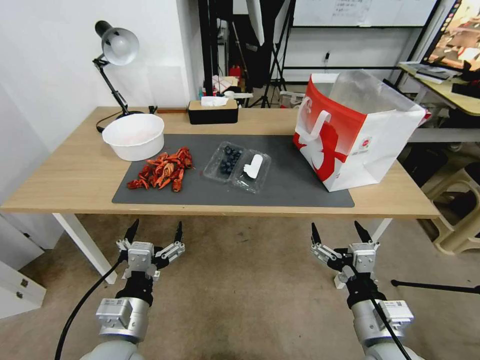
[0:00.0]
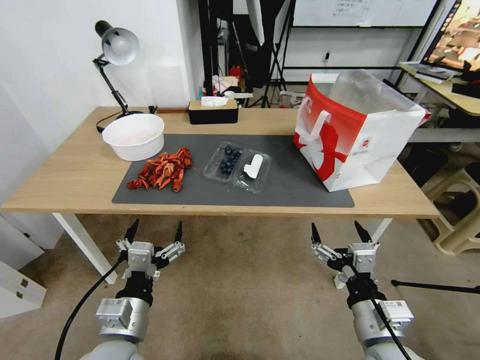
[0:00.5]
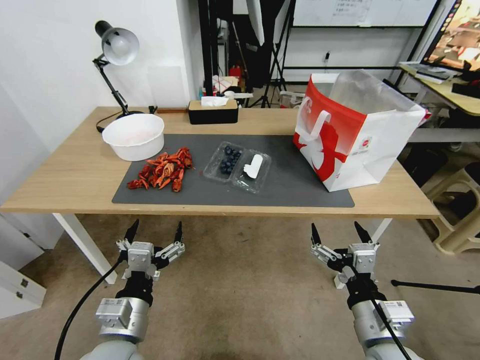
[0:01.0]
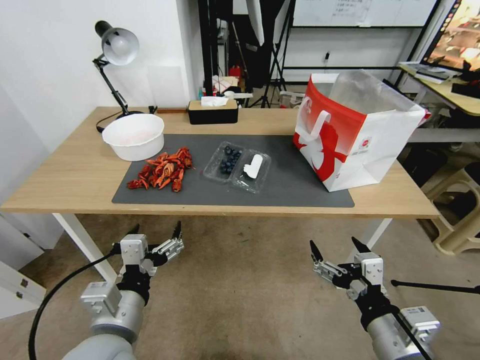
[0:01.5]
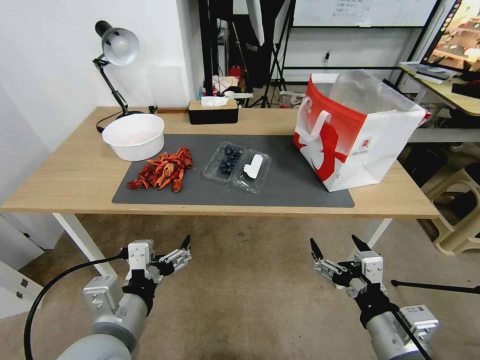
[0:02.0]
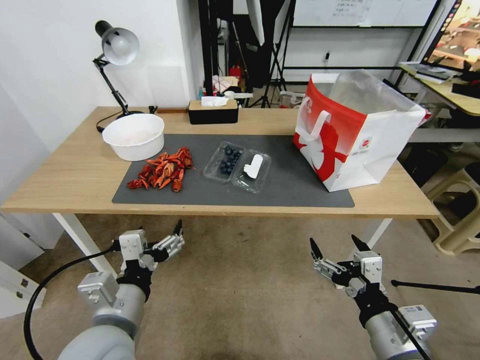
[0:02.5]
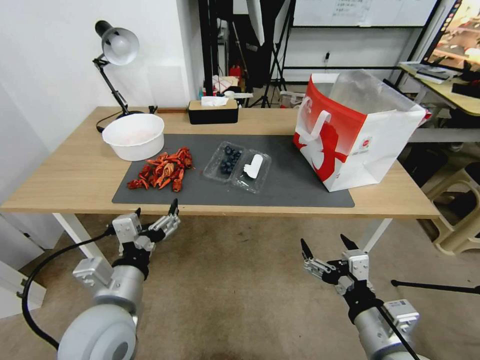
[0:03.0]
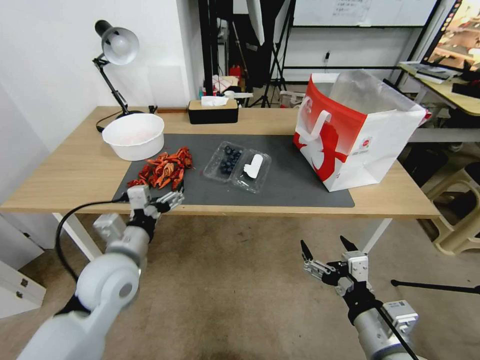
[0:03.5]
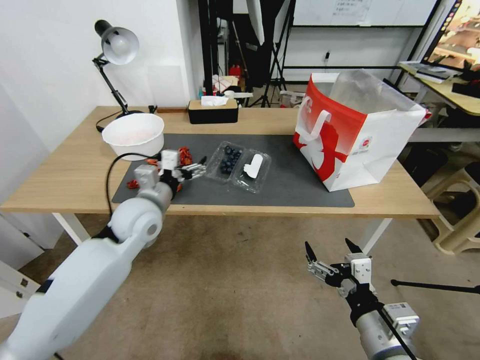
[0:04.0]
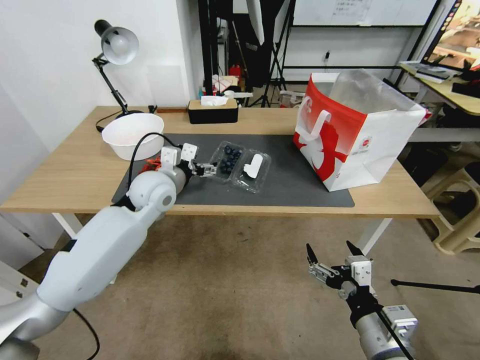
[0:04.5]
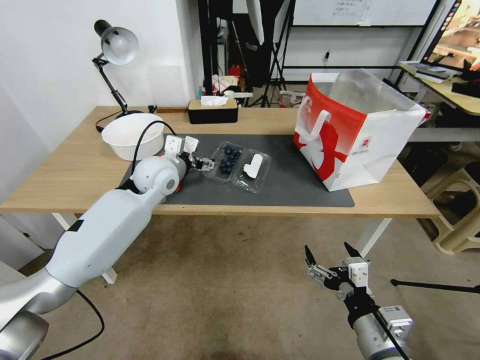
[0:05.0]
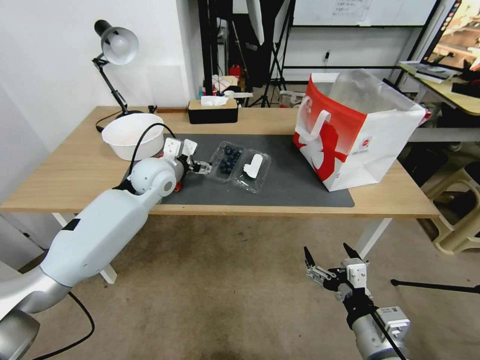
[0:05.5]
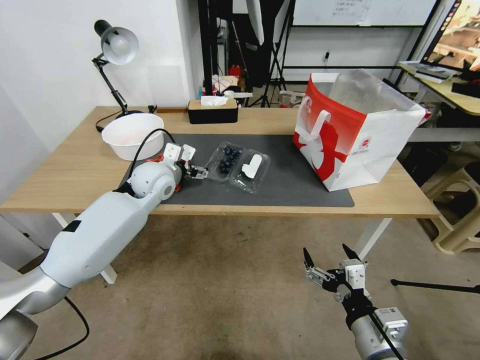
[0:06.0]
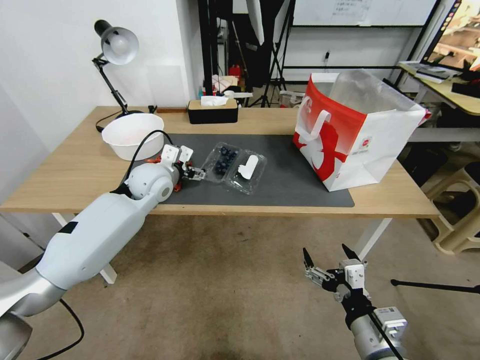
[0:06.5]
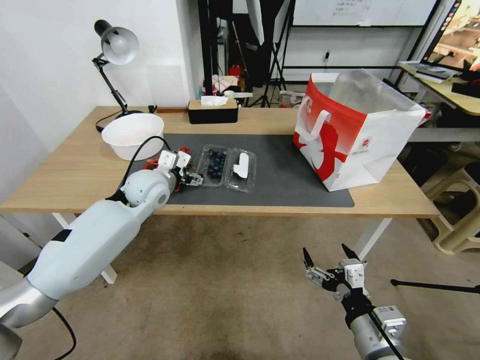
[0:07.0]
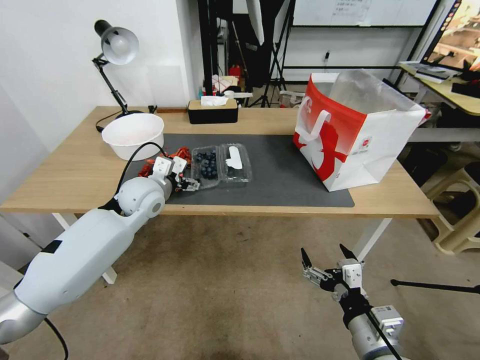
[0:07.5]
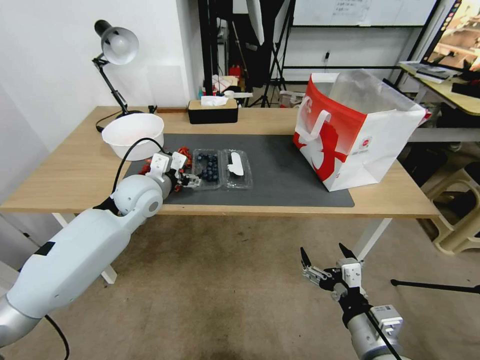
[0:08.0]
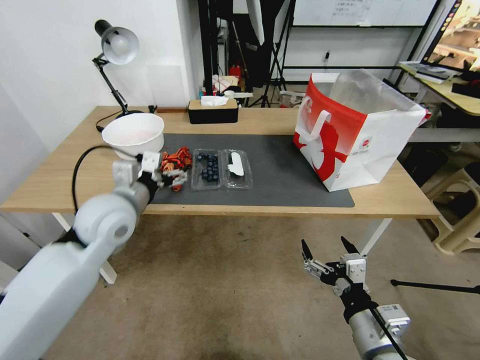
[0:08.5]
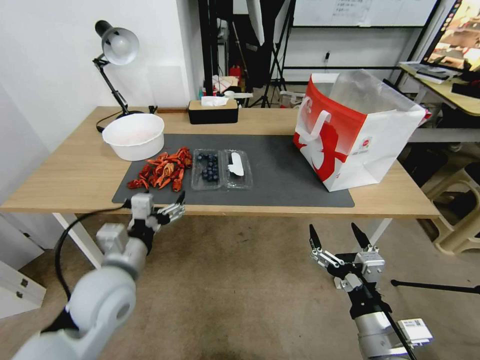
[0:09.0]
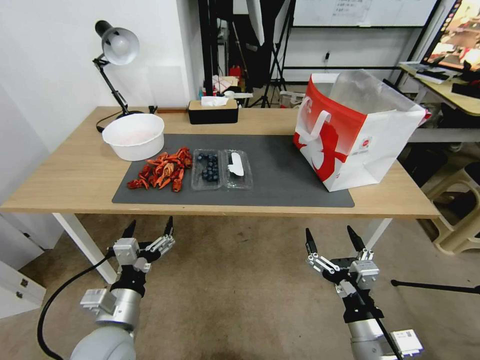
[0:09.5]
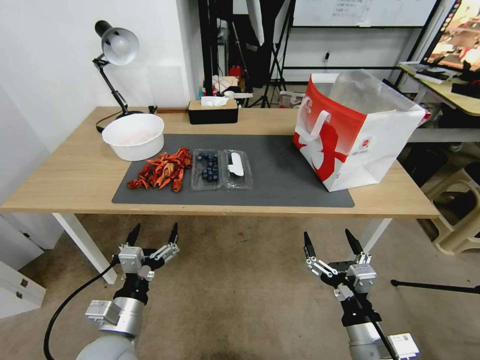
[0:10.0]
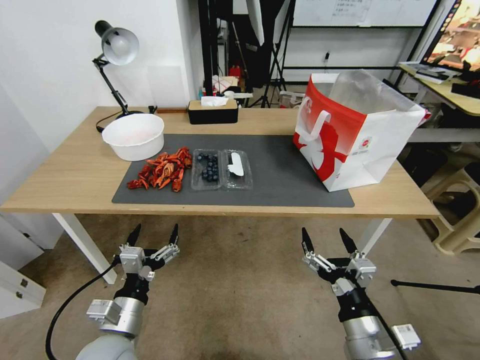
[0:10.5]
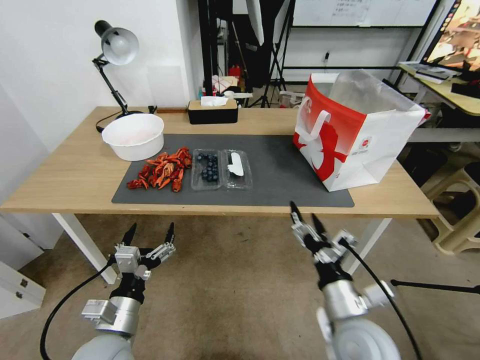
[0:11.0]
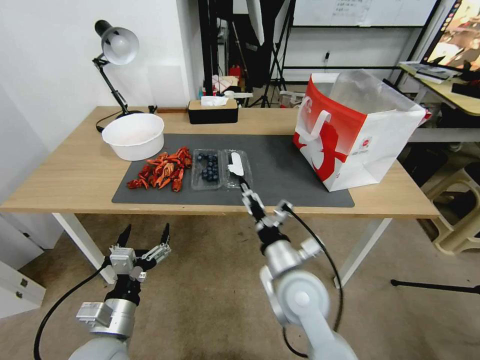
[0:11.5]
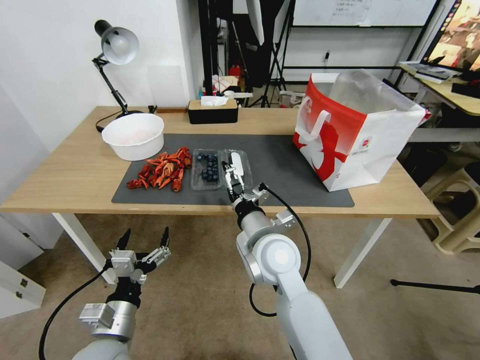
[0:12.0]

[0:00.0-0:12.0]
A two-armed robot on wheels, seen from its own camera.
Task of the whole recording: Close the takeout container lid, then place the container into the takeout bag.
0:02.0 to 0:04.0: The left gripper moves forward, roughly 20 cm.
0:04.0 to 0:06.0: The left gripper travels forward by some 10 cm.
0:06.0 to 0:08.0: The left gripper heads backward, covering roughly 5 cm.
0:08.0 to 0:10.0: The left gripper shifts approximately 30 cm backward and downward.
0:10.0 to 0:12.0: The right gripper heads forward, to the left and upward, covering roughly 25 cm.

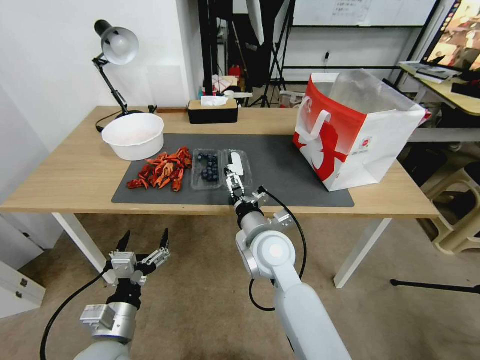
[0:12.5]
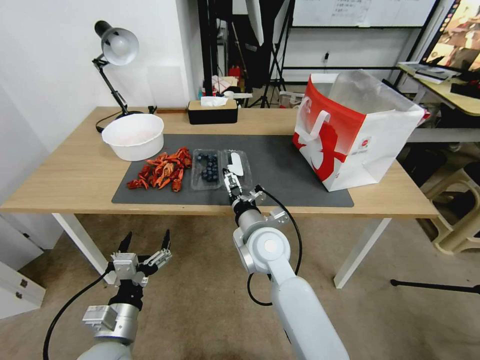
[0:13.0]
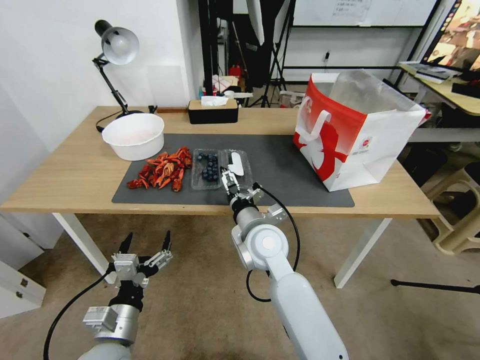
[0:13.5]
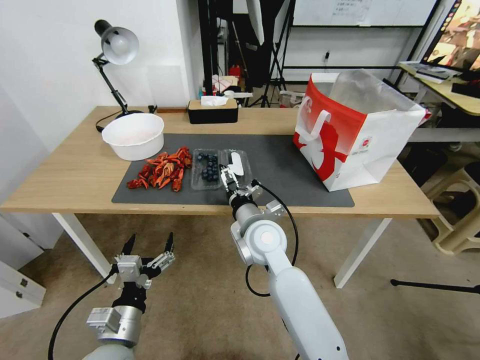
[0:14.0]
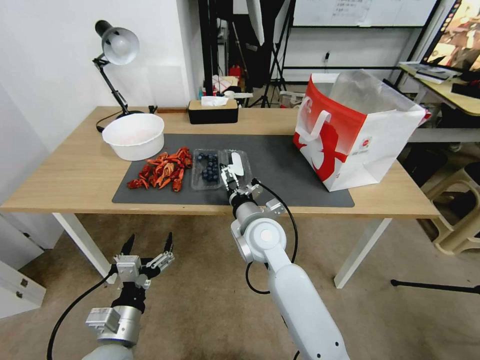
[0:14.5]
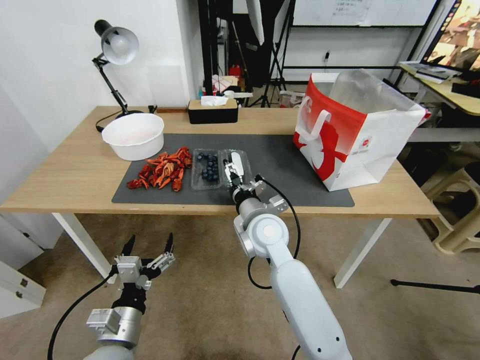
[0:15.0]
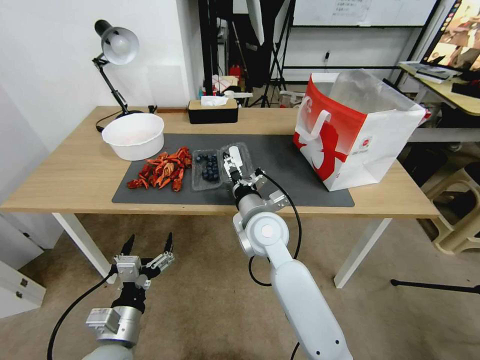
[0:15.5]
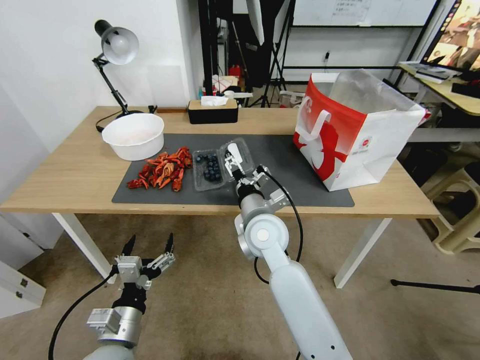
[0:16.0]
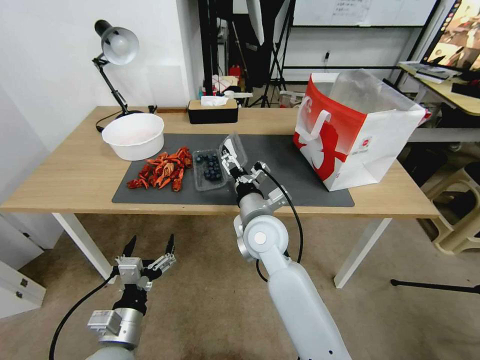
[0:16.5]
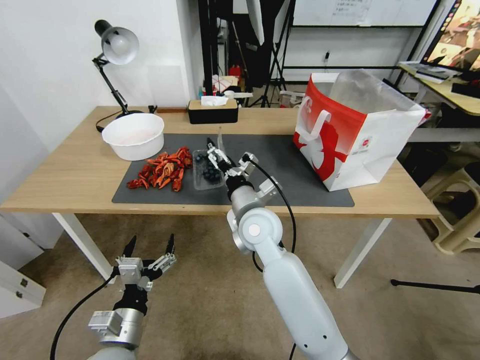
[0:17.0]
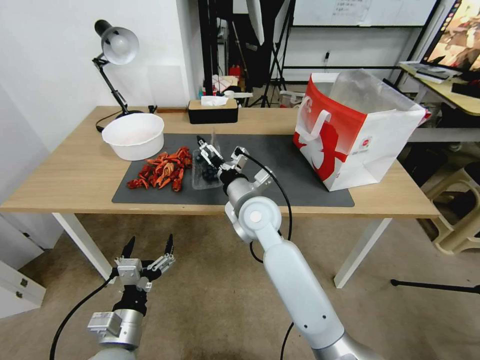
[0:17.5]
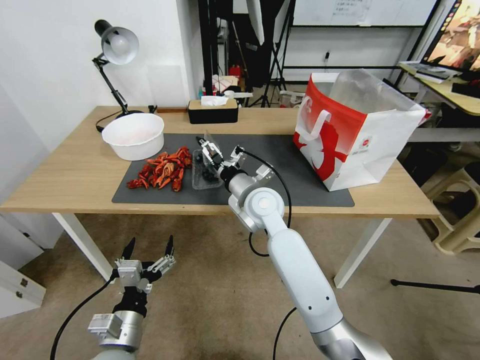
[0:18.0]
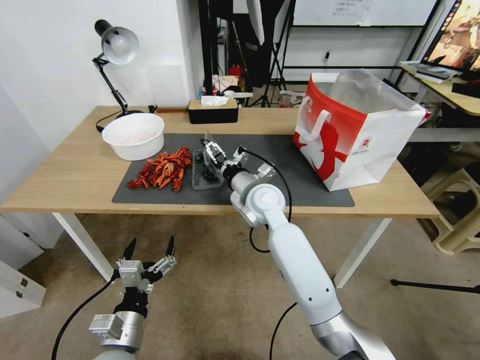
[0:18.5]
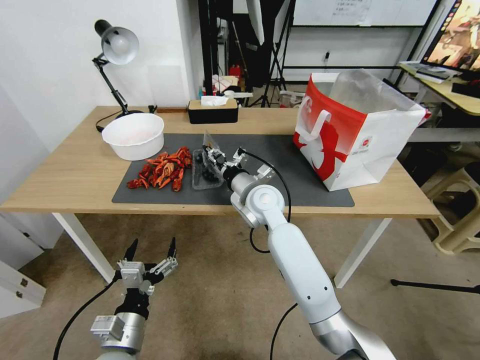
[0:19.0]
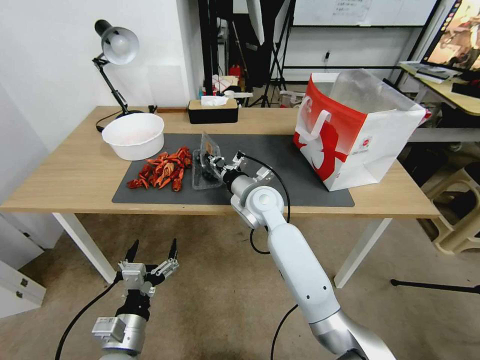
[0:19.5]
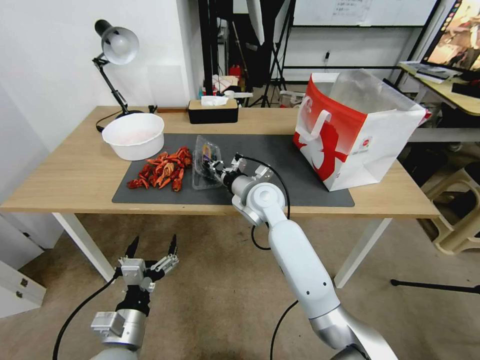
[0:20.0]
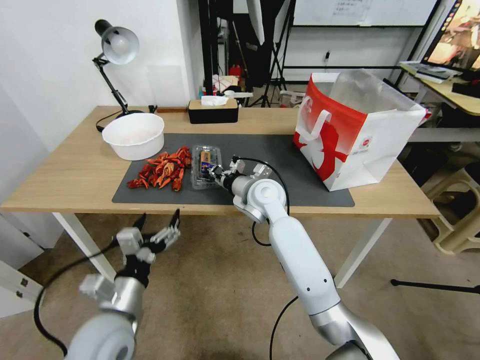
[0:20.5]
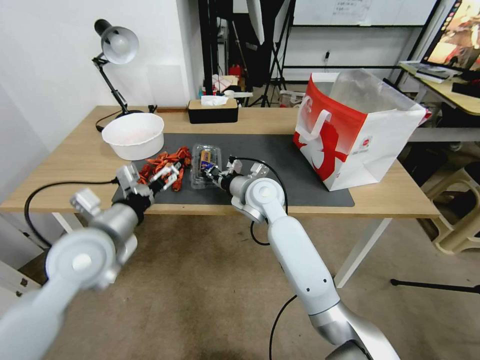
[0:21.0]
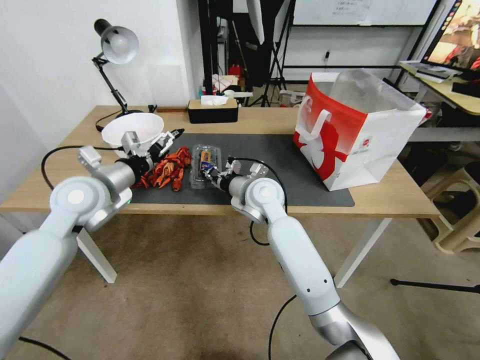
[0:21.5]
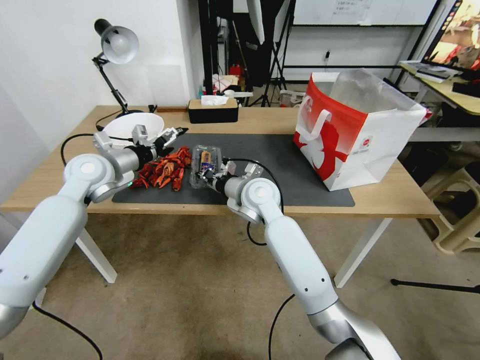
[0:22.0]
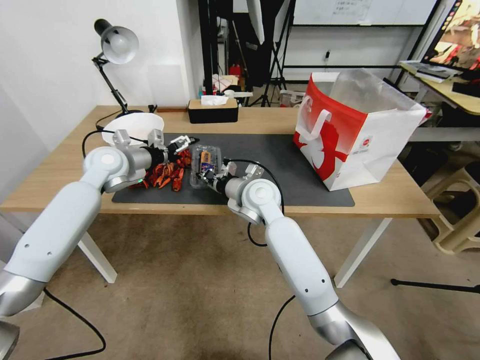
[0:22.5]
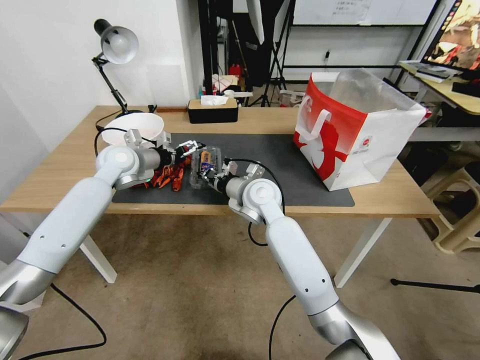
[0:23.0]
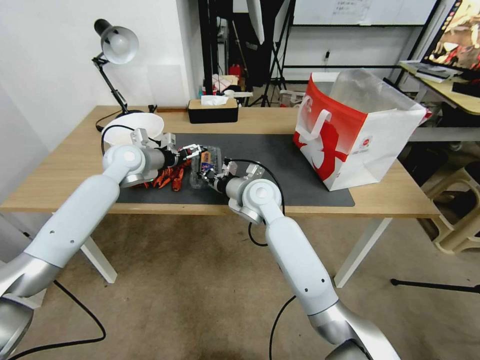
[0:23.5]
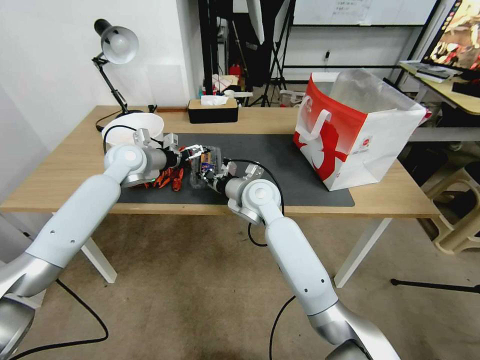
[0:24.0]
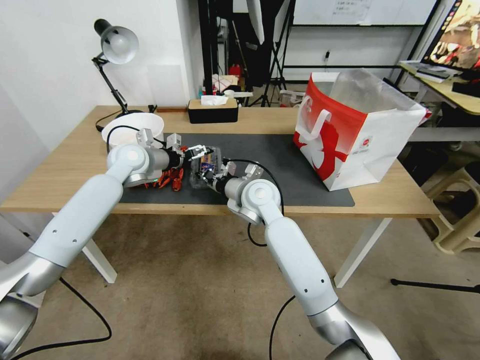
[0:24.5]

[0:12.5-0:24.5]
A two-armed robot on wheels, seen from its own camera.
Task of the whole recording: Close the takeout container lid, then place the container into the takeout bag.
0:12.5 to 0:14.5: The grippers move only a little.
0:16.5 to 0:18.5: The right gripper goes about 10 cm forward.
0:18.5 to 0:20.5: The right gripper closes.
0:20.5 to 0:22.5: The left gripper shifts roughly 40 cm forward and upward.
0:22.5 to 0:24.5: The left gripper moves about 5 cm.

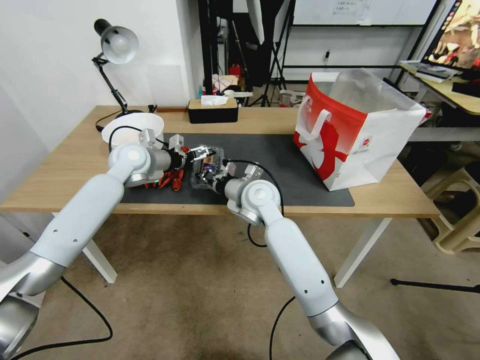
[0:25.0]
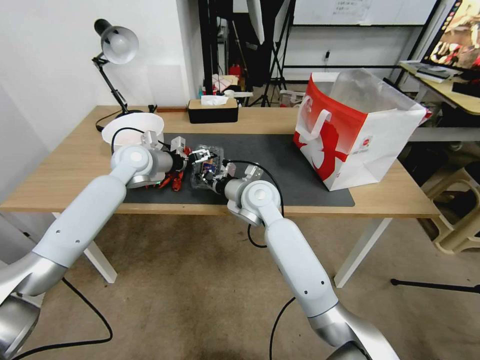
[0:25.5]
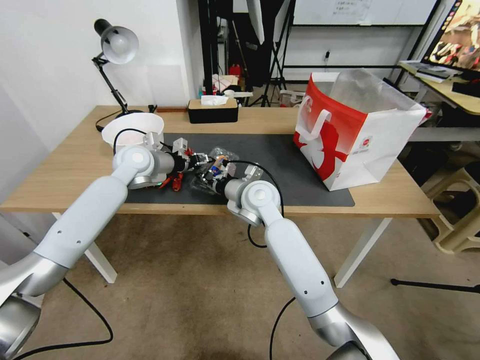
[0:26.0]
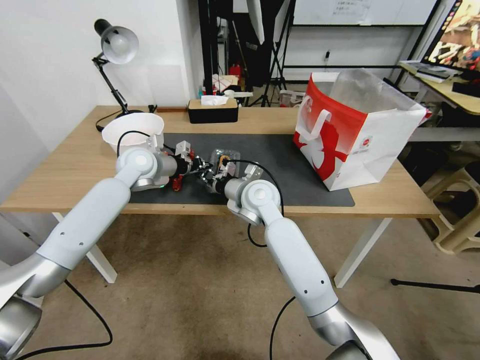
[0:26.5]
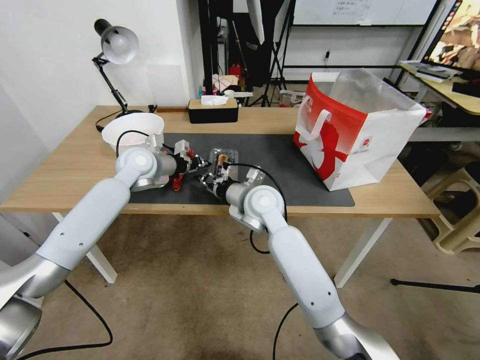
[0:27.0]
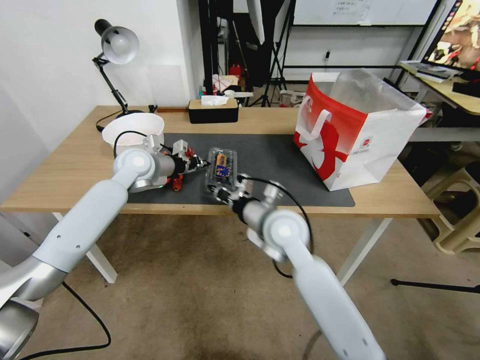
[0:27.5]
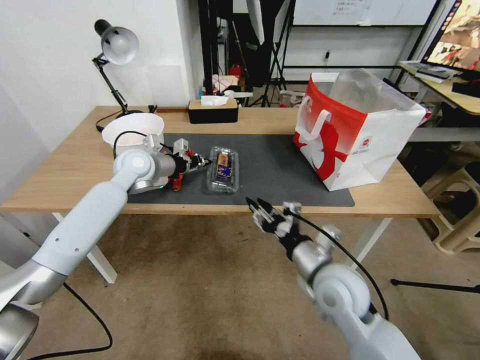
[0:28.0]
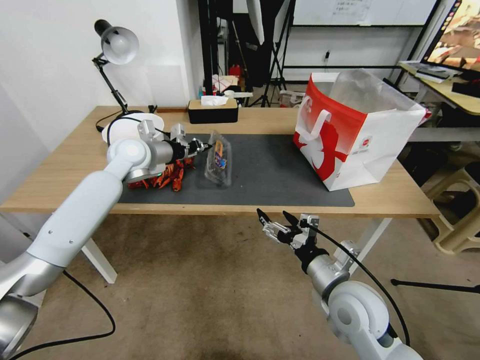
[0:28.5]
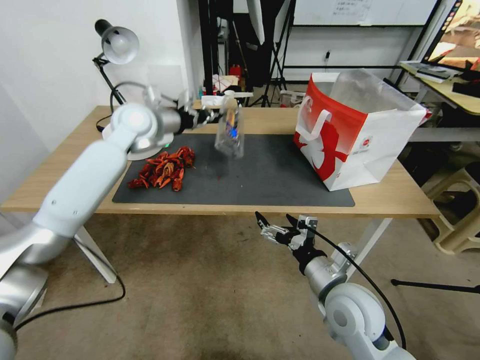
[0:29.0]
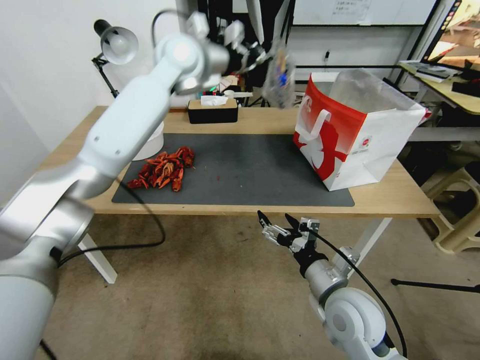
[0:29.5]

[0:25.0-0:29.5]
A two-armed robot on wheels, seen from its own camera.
Task of the whole recording: Close the takeout container lid, then place the container into the takeout bag.
0:25.0 to 0:27.0: The left gripper closes up.
0:27.0 to 0:29.5: The right gripper goes roughly 25 cm backward and to the right, and opens. Meanwhile the left gripper shifts about 30 cm upward and to the right.
